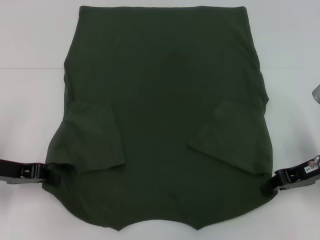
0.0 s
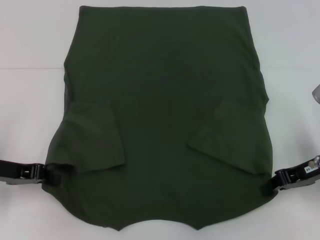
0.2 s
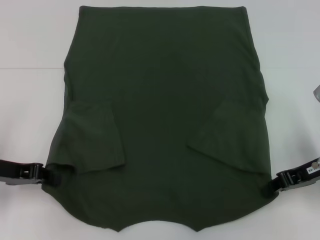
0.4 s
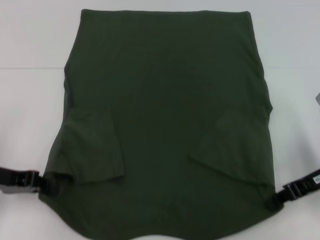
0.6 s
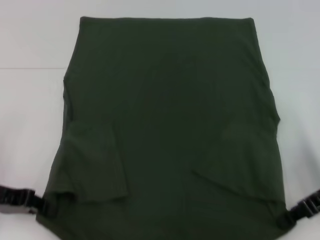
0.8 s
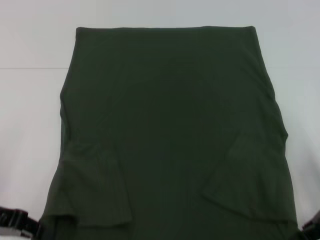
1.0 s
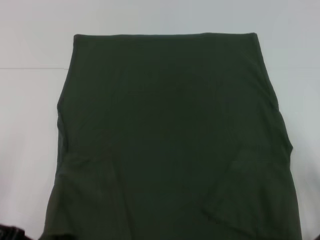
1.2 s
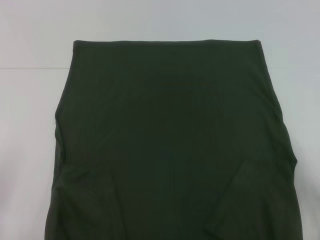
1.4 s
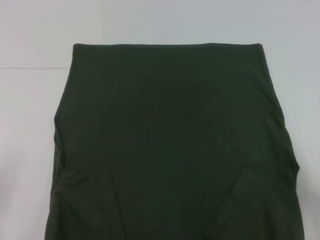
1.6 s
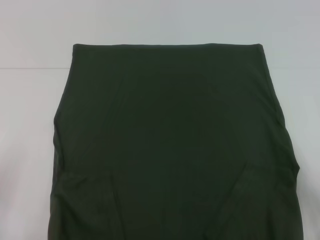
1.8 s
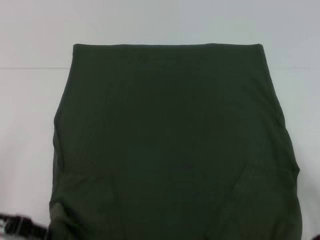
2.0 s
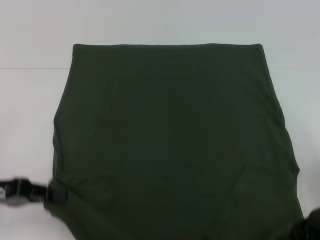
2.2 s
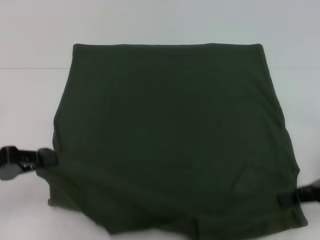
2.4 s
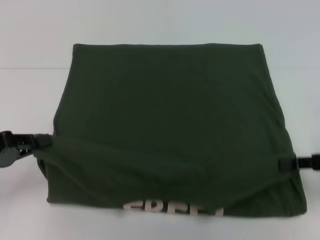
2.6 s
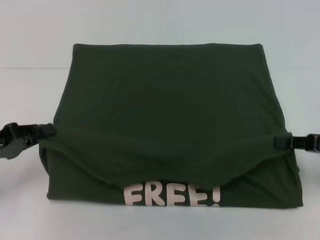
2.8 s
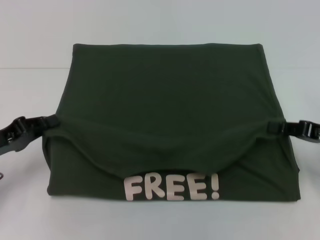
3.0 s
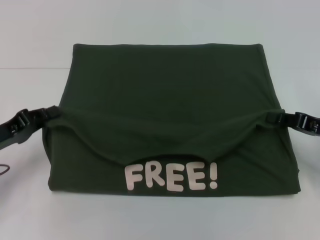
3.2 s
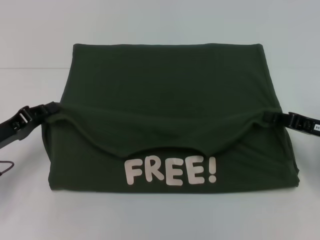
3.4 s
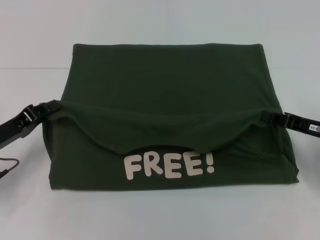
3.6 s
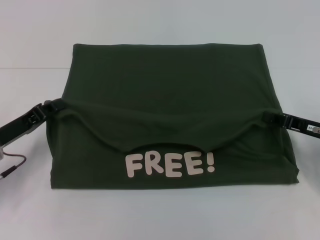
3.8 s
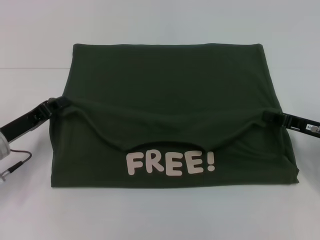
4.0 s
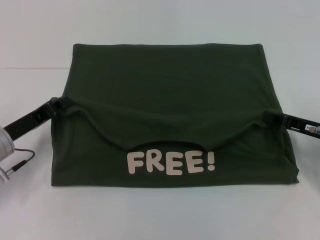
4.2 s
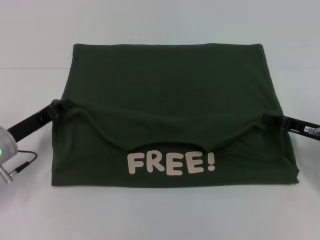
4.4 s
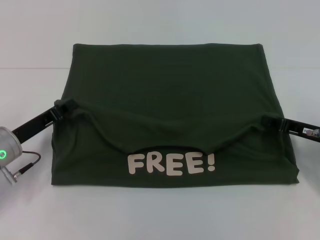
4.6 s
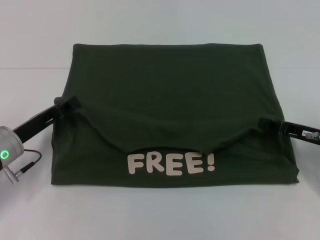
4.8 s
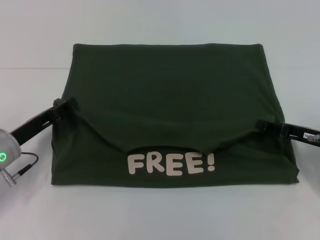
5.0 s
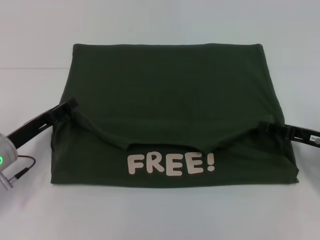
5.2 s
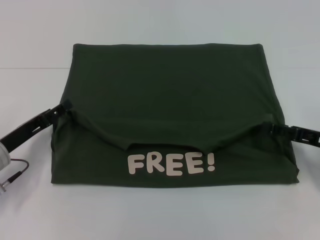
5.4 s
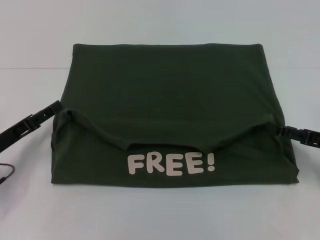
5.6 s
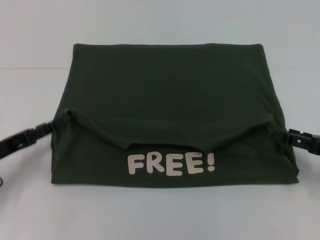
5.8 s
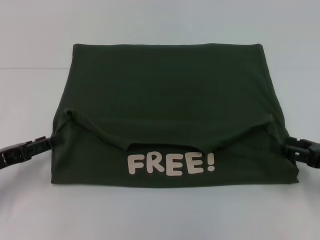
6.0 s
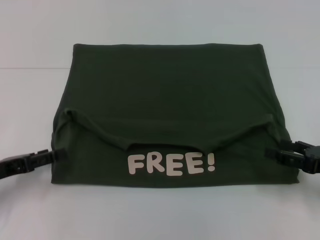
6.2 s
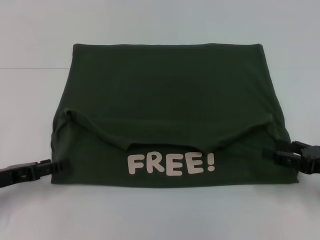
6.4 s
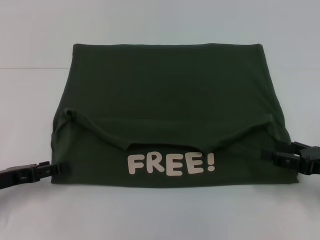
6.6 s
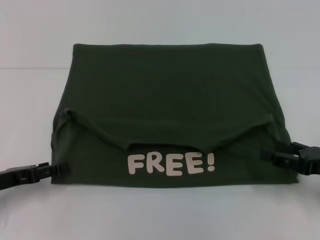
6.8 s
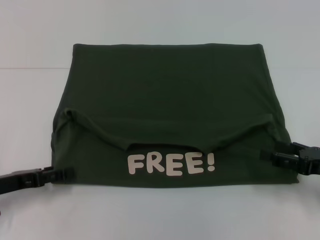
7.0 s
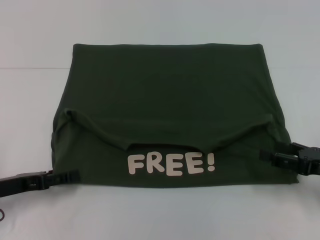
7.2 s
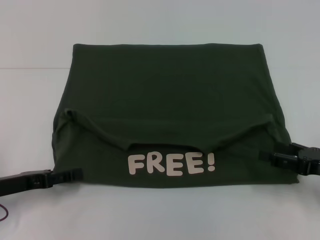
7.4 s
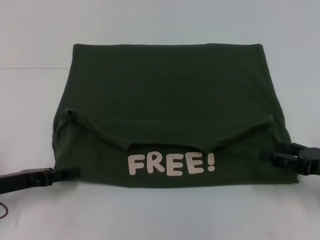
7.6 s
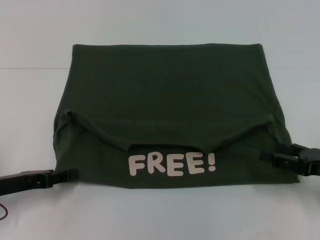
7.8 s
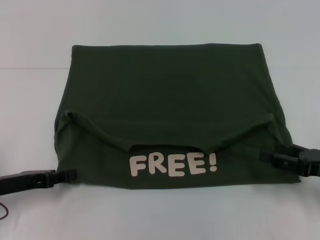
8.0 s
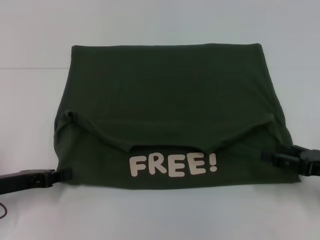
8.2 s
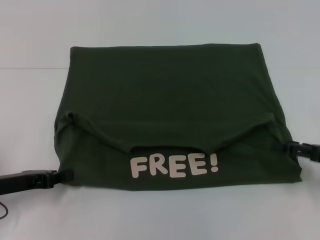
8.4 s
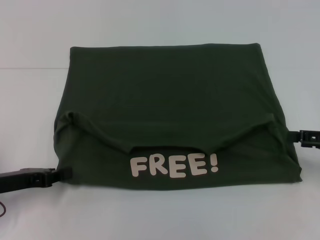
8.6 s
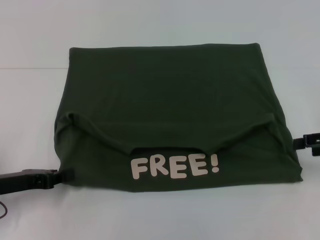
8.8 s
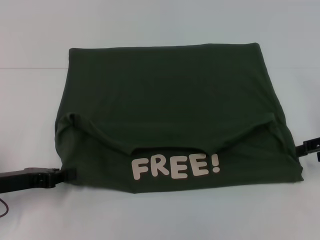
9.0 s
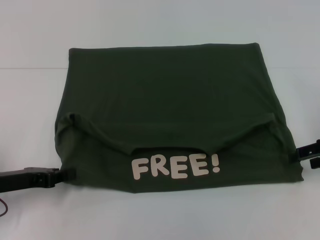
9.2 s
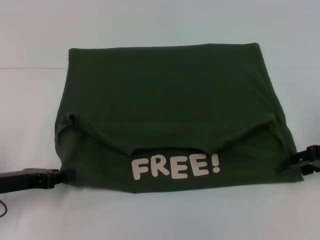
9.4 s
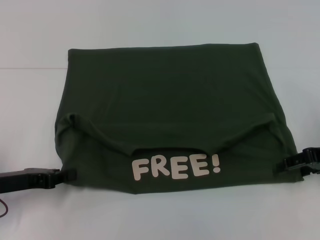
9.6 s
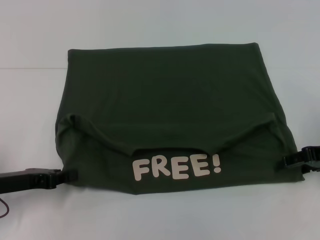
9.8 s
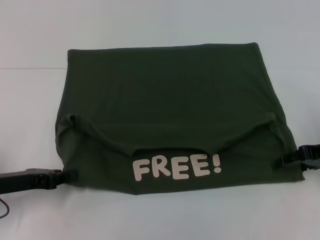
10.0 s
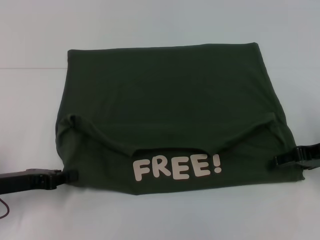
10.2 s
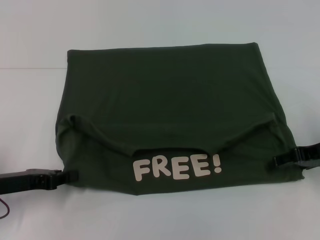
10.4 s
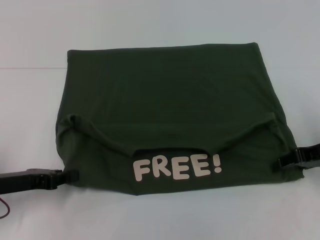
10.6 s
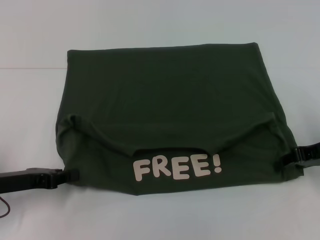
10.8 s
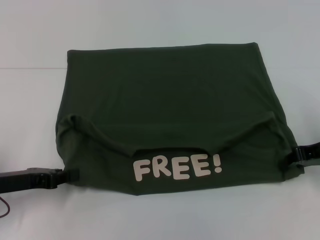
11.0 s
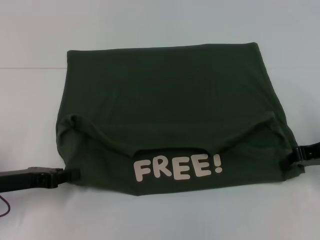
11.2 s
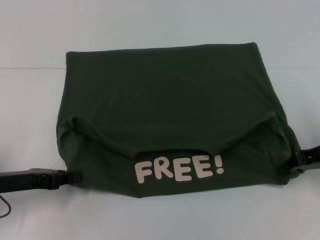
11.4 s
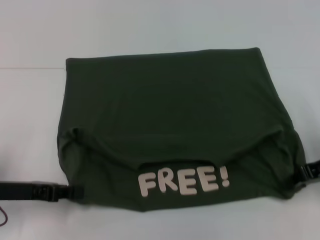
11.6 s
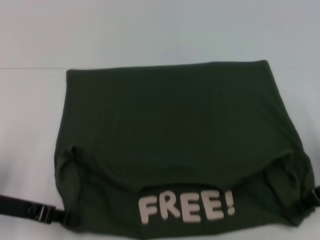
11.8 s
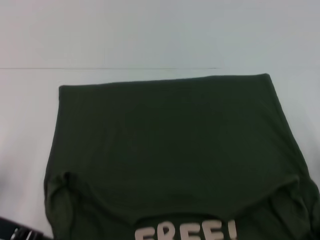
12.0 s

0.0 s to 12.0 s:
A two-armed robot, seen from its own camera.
Step, 0.8 to 5.0 s: Fold the clothes with your left hand.
Step, 0.8 to 5.0 s: Fold the clothes with your right hand.
0.0 to 1.6 s: Both grippers move backward, roughly 5 cm.
1.6 to 3.0 s: The left gripper shifts by some 5 cm. The right gripper travels forward by some 5 cm.
3.0 to 4.4 s: The right gripper ends up roughly 5 cm from where it was, while the left gripper ends up about 5 cm from where it was.
4.4 to 6.0 s: The right gripper heads backward, covering roughly 5 cm, and opens up; the left gripper shifts some 10 cm to the left and backward, and opens up.
6.0 to 7.6 s: There are only small adjustments of the grippers.
7.6 to 9.0 s: The left gripper closes, while the right gripper shifts roughly 10 cm upward and forward.
9.0 to 10.4 s: The right gripper ends up about 5 cm from where it was.
10.4 to 12.0 s: The right gripper moves backward, roughly 5 cm, and closes up.

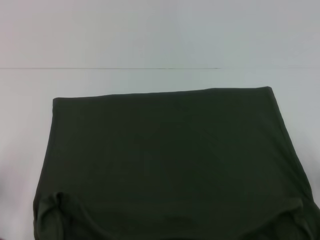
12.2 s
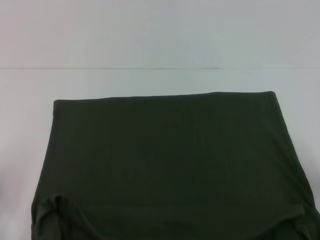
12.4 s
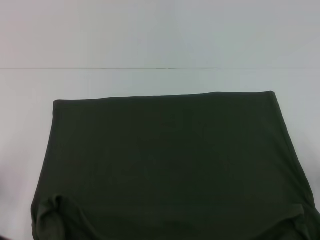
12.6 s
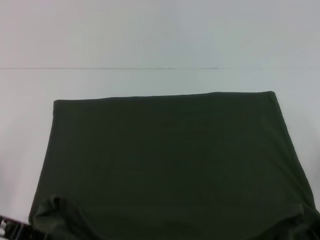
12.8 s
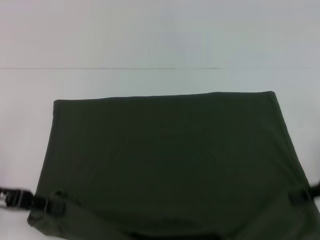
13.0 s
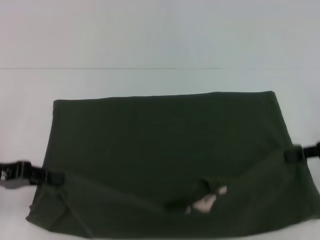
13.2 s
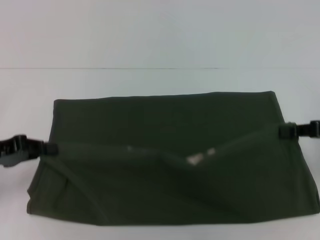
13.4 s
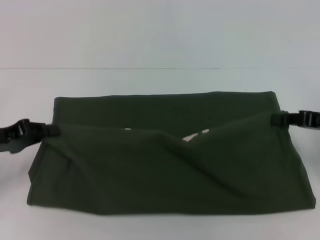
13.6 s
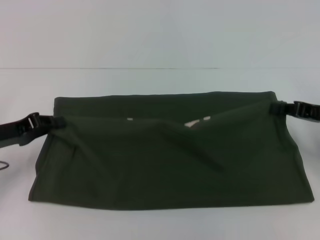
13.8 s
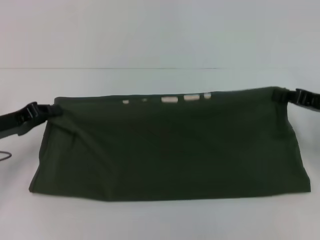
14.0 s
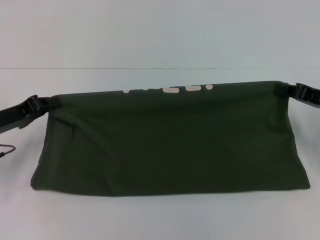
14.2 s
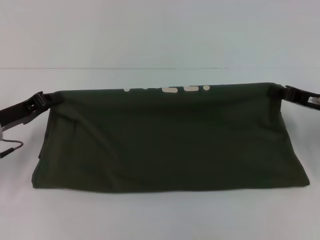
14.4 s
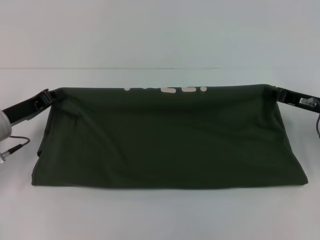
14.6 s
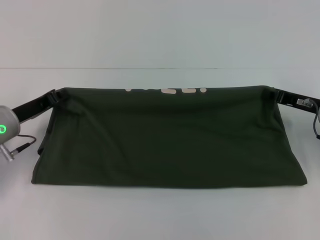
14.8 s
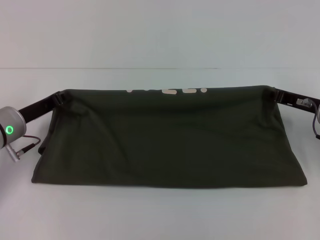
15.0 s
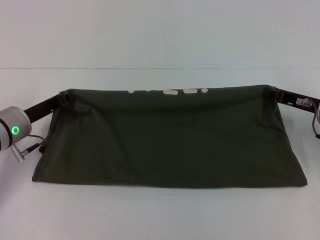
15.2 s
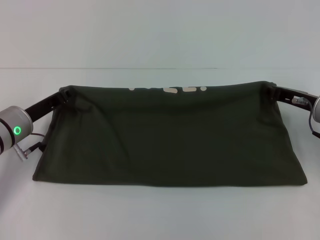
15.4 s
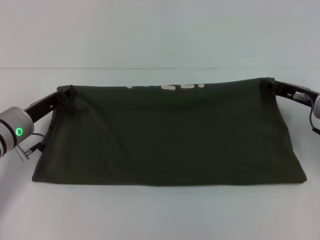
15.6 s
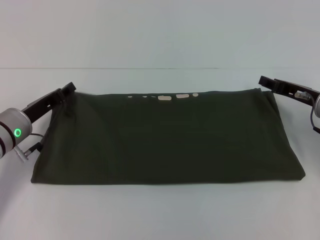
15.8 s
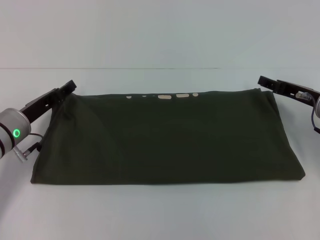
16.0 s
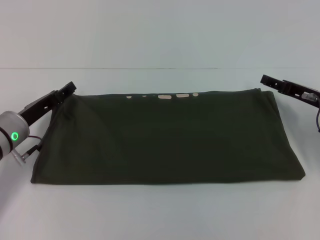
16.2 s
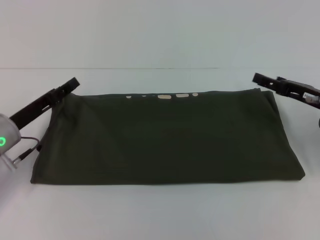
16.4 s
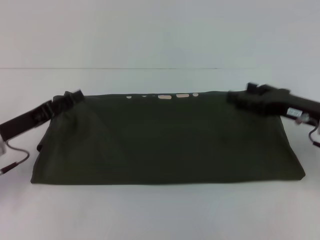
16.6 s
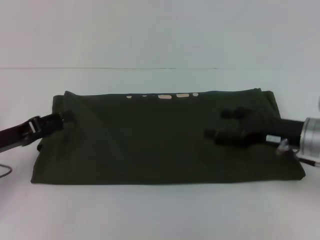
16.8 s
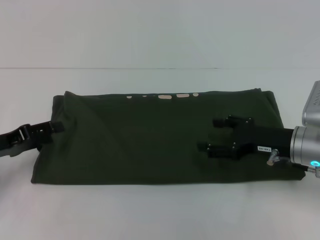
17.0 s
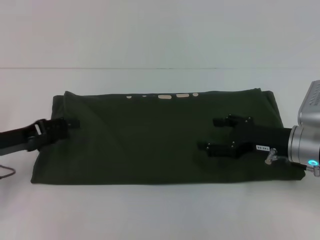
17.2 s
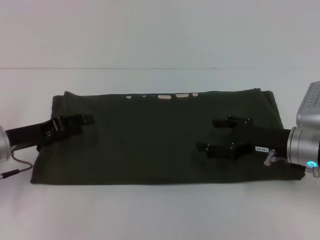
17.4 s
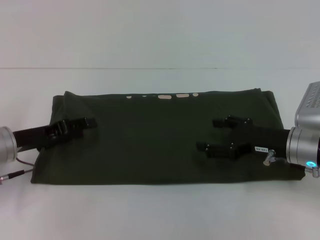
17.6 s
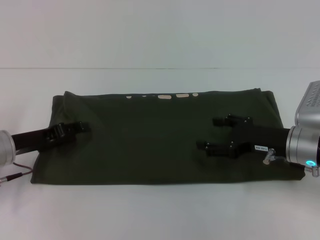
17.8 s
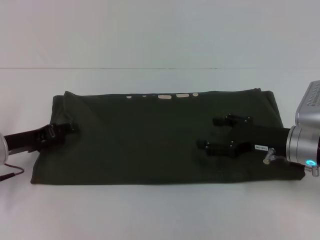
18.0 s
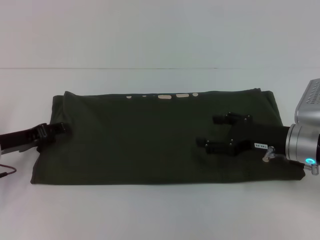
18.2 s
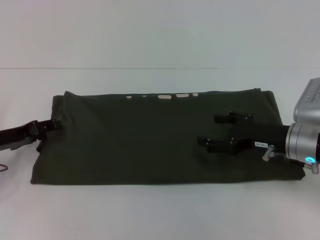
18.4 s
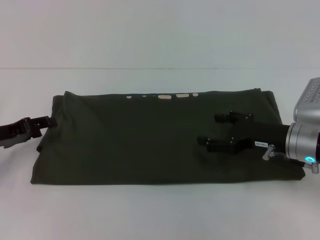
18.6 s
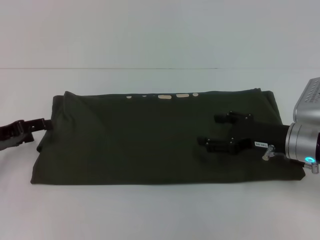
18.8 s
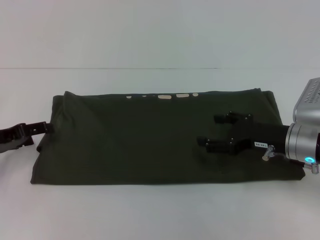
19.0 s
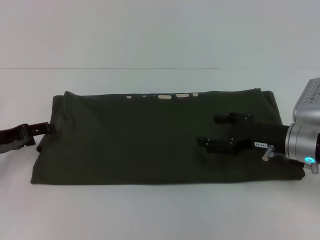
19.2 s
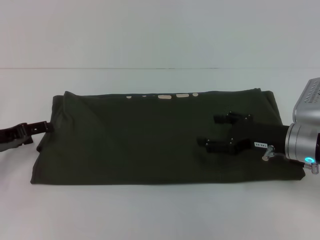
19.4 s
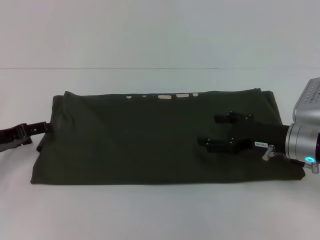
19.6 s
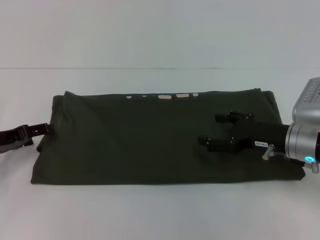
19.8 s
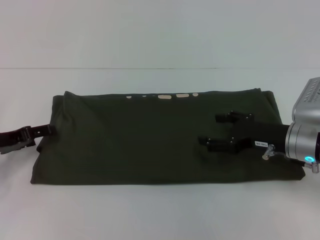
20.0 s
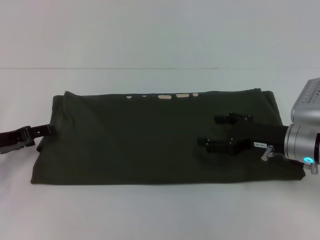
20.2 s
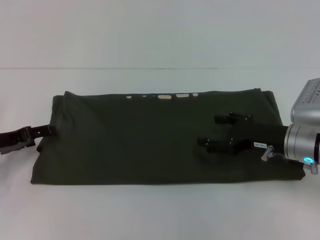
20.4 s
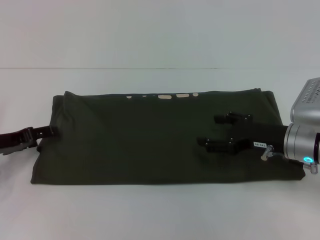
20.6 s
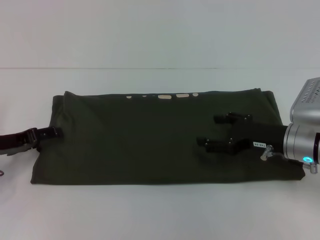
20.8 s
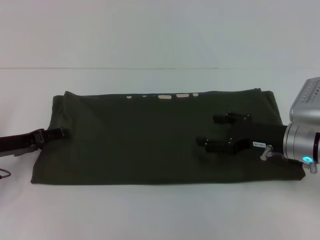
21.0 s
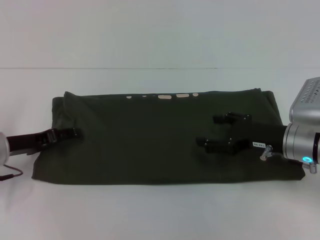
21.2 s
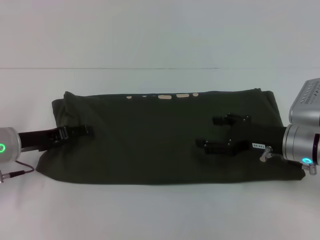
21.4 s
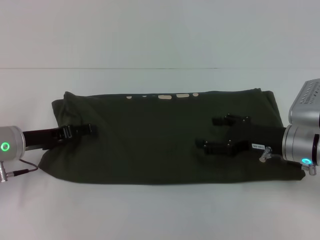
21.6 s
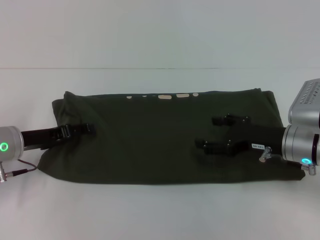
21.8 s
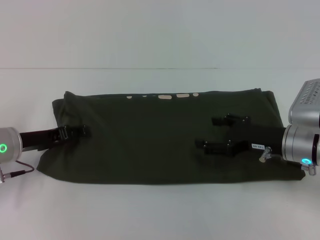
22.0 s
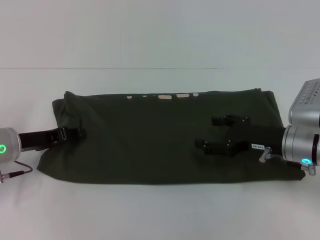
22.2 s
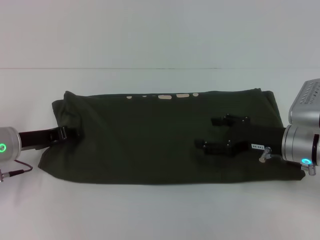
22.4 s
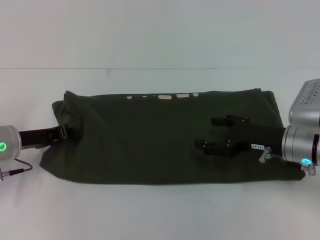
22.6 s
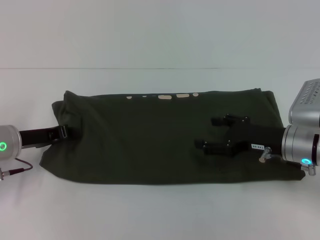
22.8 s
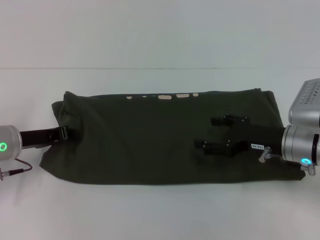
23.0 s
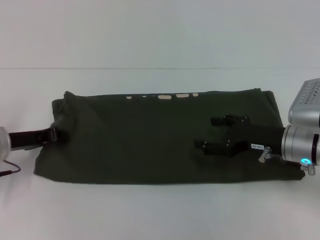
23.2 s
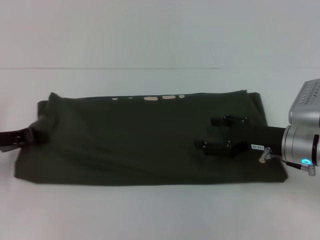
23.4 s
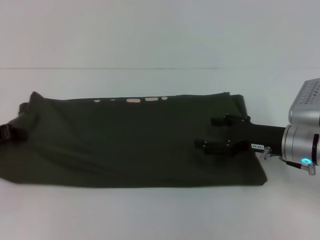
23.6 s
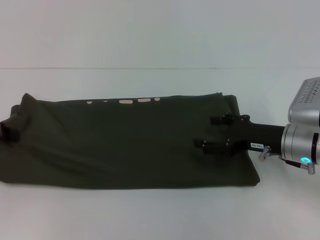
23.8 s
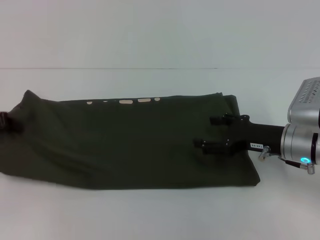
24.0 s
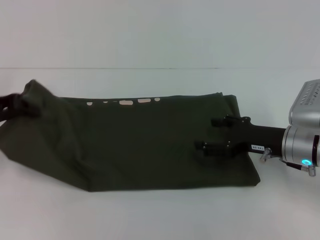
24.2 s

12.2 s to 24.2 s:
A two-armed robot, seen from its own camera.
Step, 12.4 to 16.2 s: Fold the clothes with your right hand.
12.2 to 13.8 s: The grippers both shift forward by roughly 5 cm.
13.8 to 15.2 s: The left gripper shifts approximately 5 cm to the right, while the right gripper moves approximately 5 cm.
15.2 to 16.6 s: The right gripper opens up, while the left gripper ends up roughly 5 cm from where it was, and opens.
16.6 to 18.2 s: The right gripper moves about 5 cm.
18.2 to 21.2 s: The grippers stay close to where they were, moving slightly.
21.2 to 22.6 s: The left gripper closes up.
22.6 to 24.2 s: The left gripper shifts roughly 10 cm upward and to the left.
